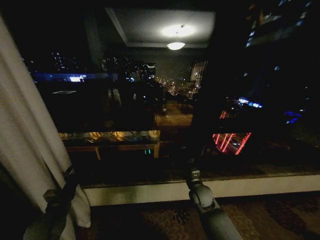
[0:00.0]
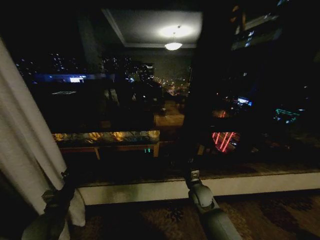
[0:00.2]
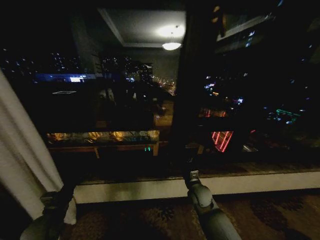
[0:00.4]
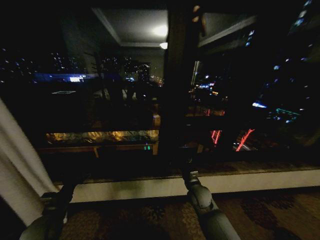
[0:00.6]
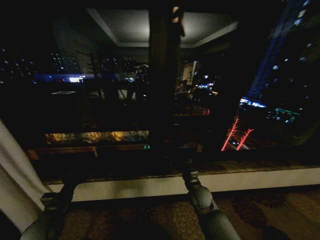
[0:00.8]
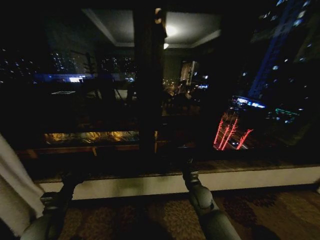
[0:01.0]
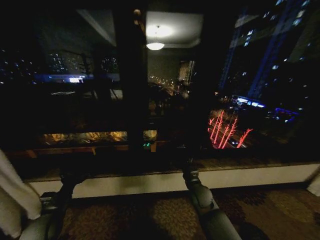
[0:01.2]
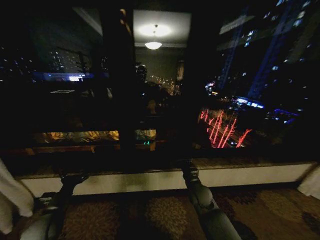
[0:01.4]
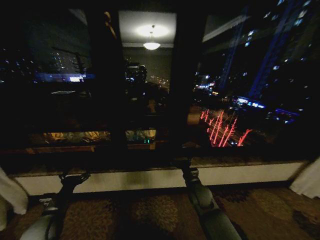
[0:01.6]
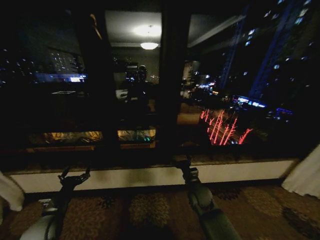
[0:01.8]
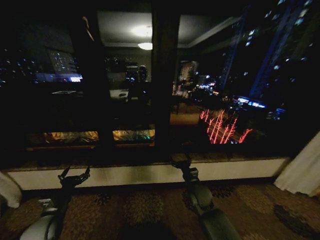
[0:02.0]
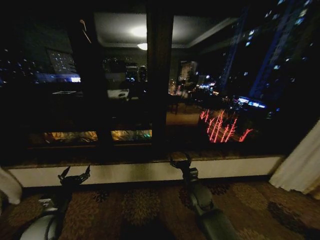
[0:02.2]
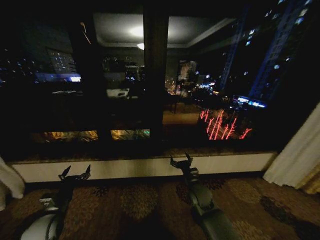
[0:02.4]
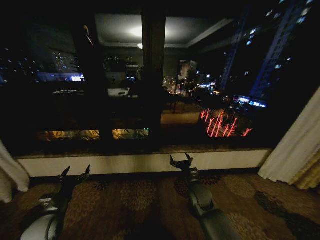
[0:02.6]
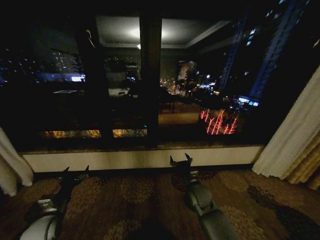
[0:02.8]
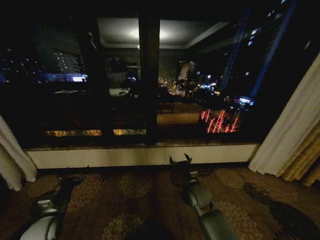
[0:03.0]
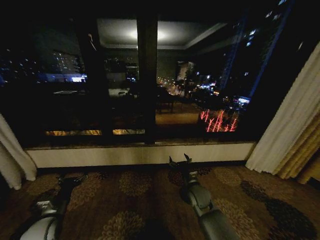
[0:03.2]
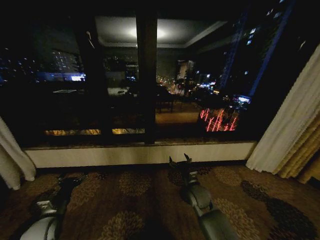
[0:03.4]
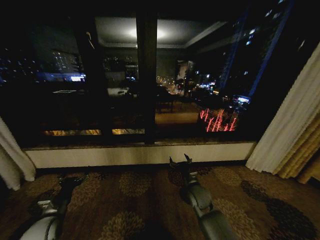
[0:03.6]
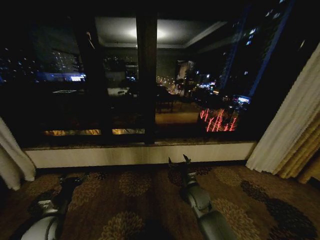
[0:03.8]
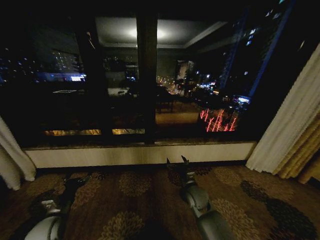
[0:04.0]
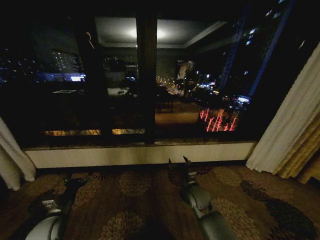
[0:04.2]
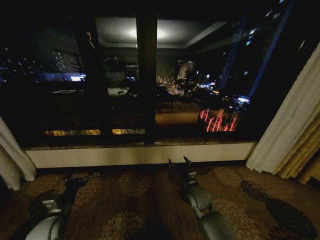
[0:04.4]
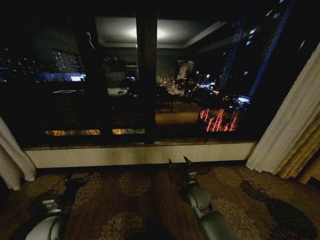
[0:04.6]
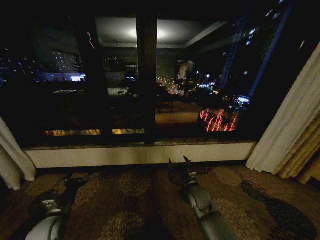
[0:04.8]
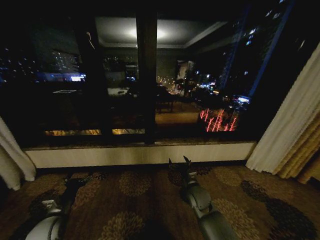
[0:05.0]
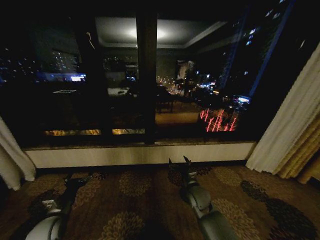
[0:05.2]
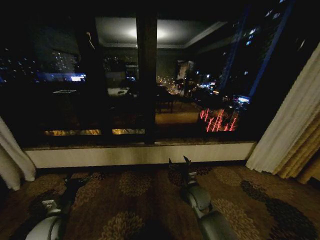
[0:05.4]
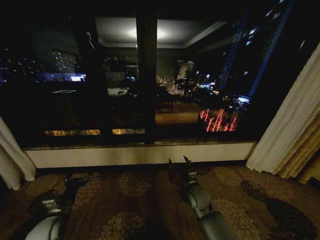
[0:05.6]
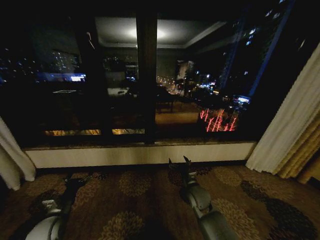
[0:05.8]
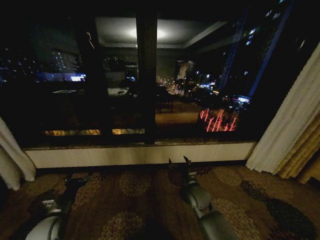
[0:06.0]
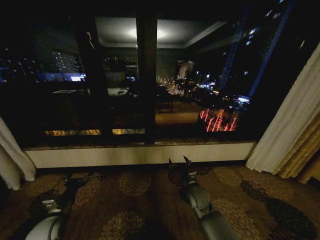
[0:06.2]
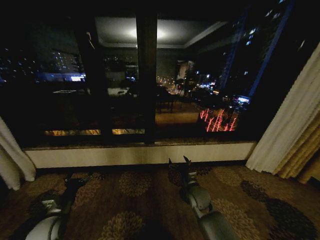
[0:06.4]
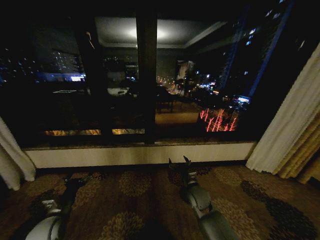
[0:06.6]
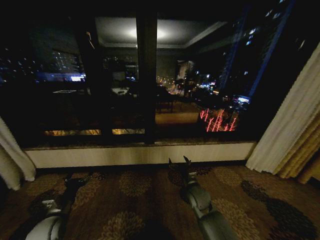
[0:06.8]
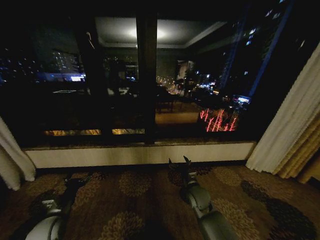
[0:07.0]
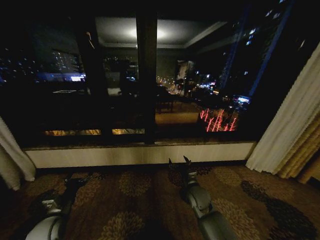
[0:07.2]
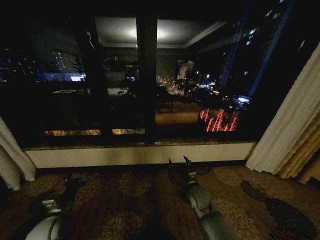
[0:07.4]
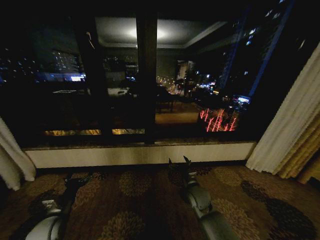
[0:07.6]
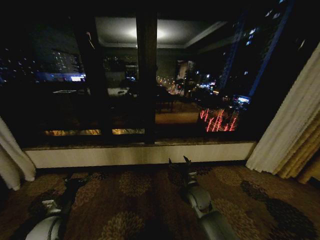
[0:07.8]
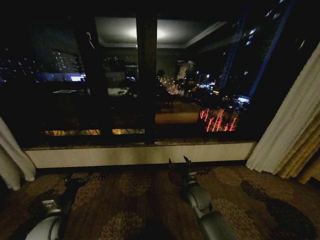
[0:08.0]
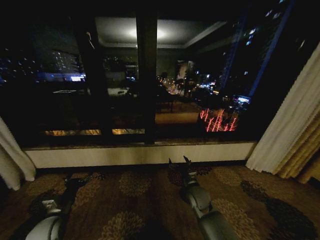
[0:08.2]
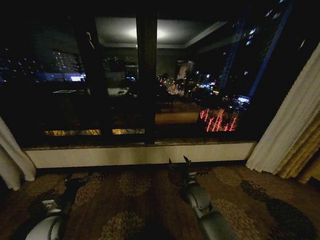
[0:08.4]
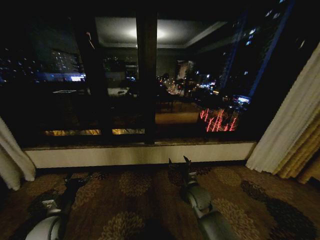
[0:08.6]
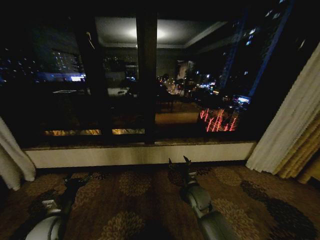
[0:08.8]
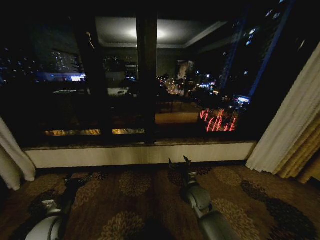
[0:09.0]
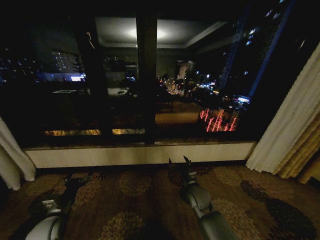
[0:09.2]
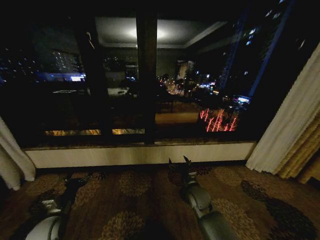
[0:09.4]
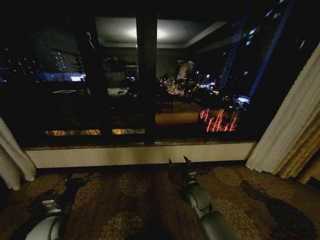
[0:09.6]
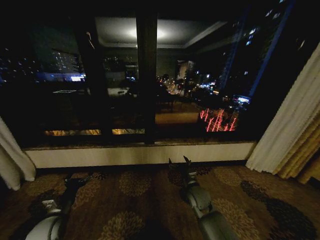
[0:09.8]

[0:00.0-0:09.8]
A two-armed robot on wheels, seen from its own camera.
Task of the whole recording: Open the curtains by pulling them apart, changing their state from closed to fully open.
0:02.8 to 0:04.2: There are only small adjustments of the grippers.
0:04.2 to 0:09.8: Both grippers stay about where they are.

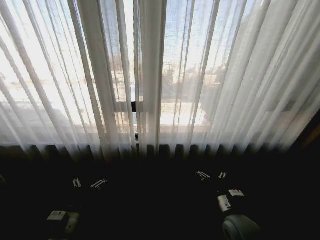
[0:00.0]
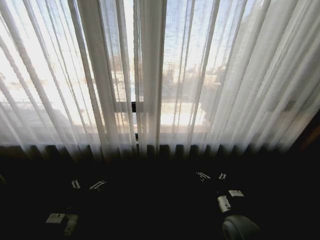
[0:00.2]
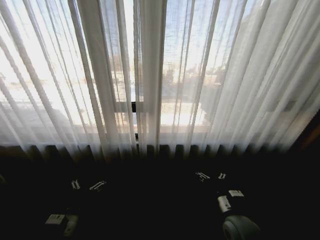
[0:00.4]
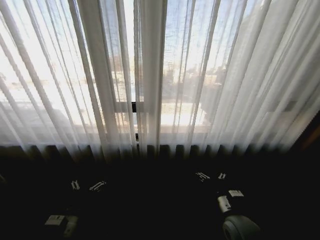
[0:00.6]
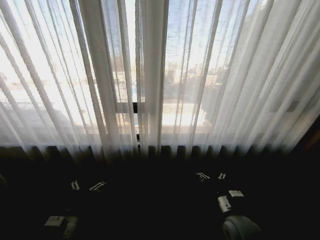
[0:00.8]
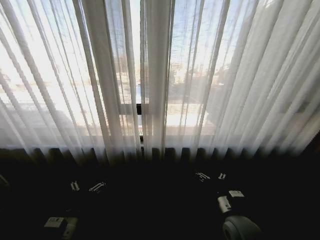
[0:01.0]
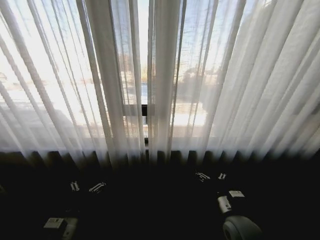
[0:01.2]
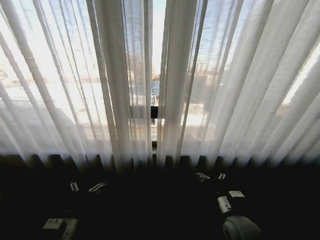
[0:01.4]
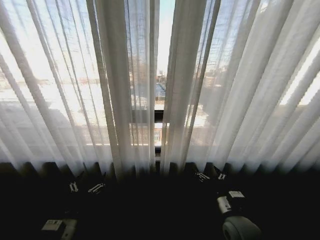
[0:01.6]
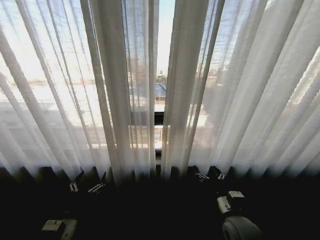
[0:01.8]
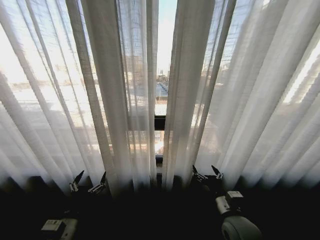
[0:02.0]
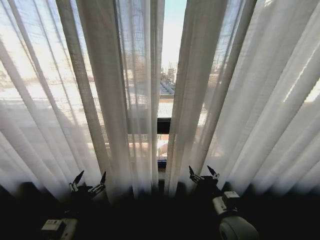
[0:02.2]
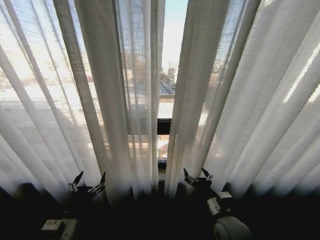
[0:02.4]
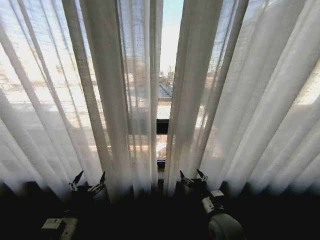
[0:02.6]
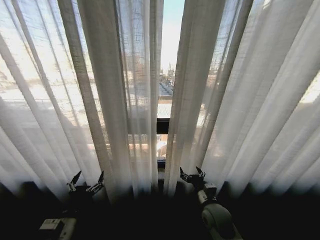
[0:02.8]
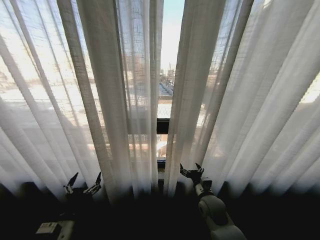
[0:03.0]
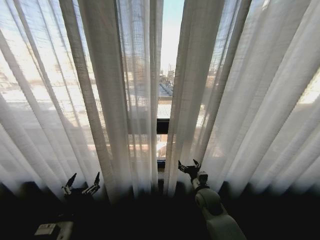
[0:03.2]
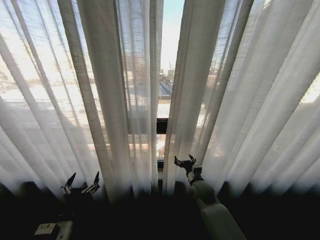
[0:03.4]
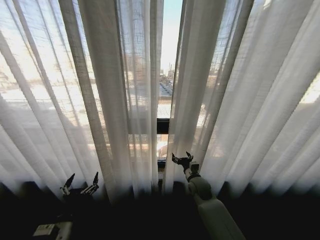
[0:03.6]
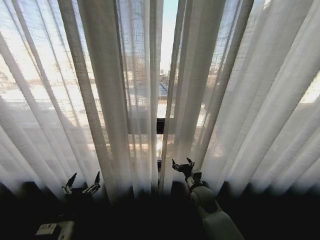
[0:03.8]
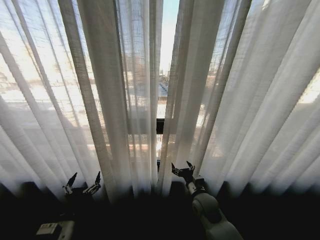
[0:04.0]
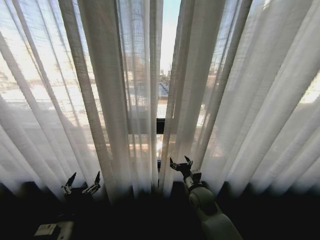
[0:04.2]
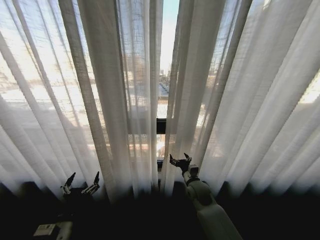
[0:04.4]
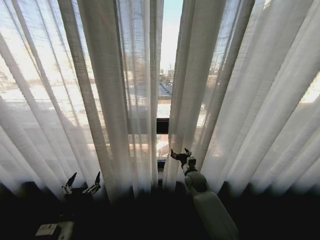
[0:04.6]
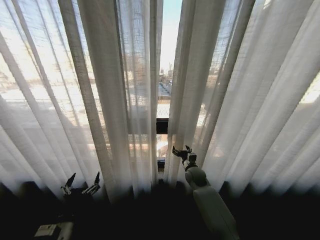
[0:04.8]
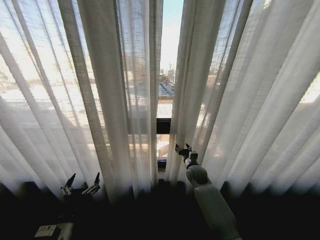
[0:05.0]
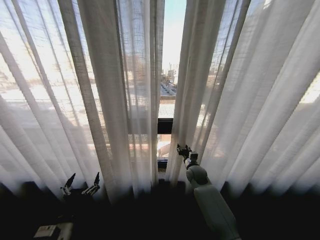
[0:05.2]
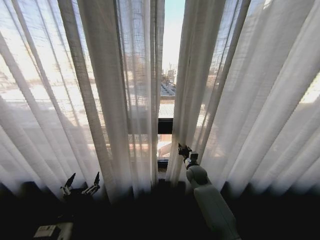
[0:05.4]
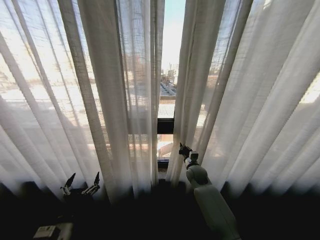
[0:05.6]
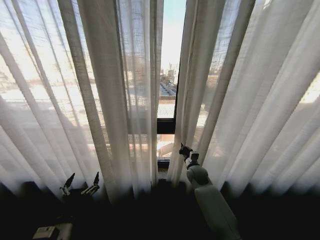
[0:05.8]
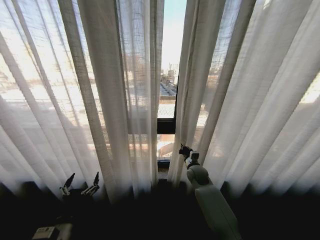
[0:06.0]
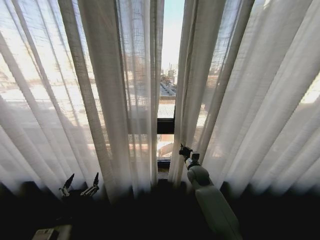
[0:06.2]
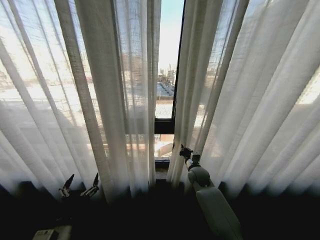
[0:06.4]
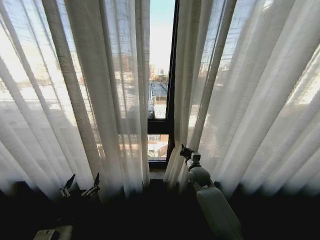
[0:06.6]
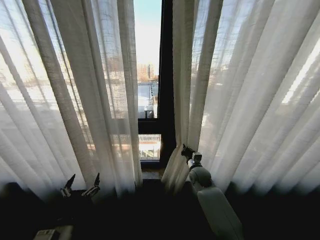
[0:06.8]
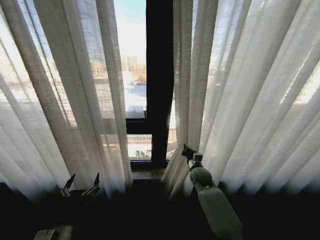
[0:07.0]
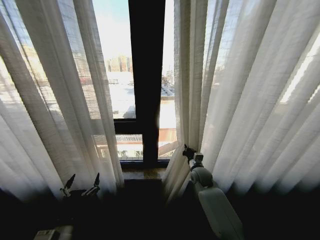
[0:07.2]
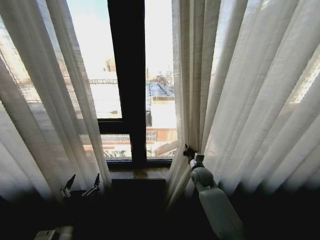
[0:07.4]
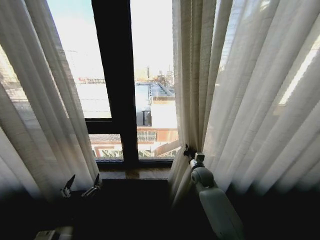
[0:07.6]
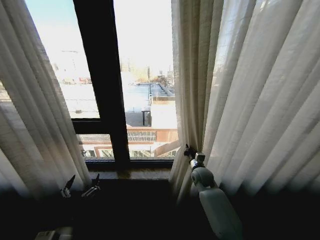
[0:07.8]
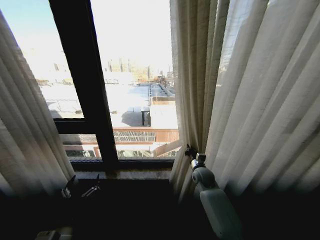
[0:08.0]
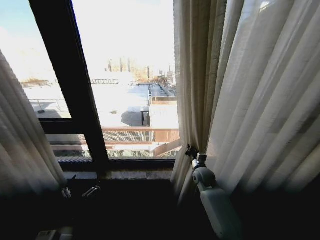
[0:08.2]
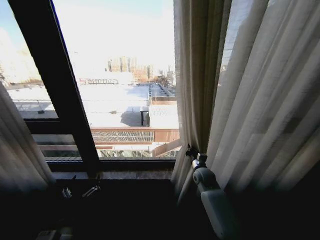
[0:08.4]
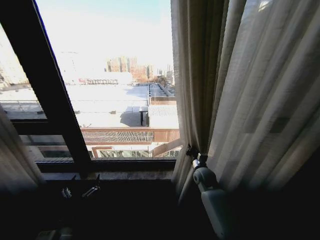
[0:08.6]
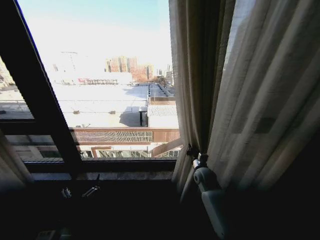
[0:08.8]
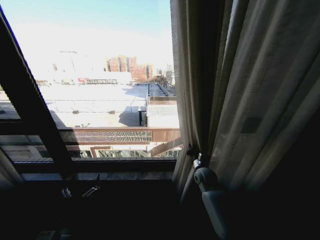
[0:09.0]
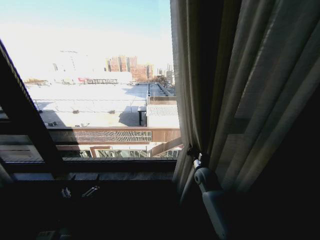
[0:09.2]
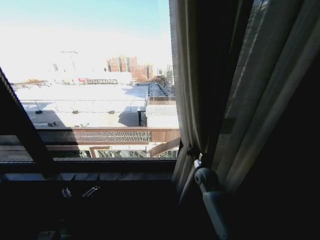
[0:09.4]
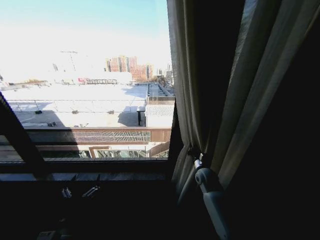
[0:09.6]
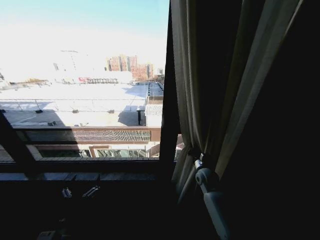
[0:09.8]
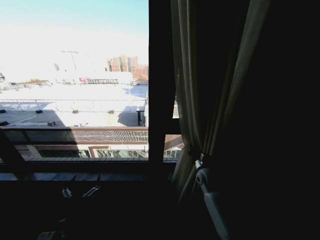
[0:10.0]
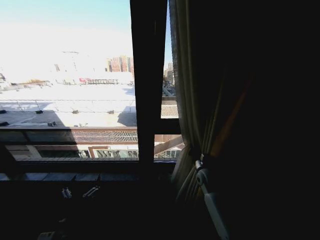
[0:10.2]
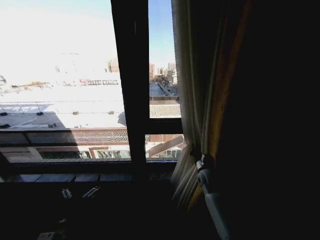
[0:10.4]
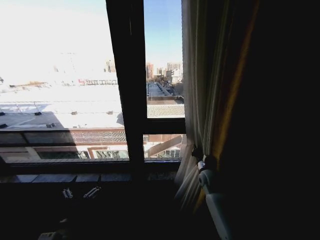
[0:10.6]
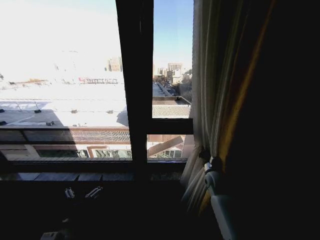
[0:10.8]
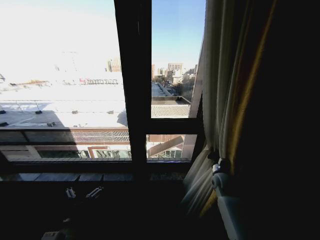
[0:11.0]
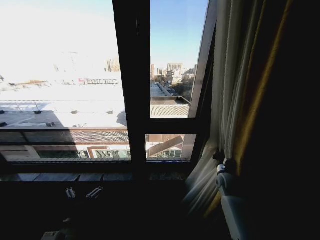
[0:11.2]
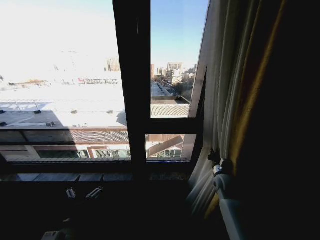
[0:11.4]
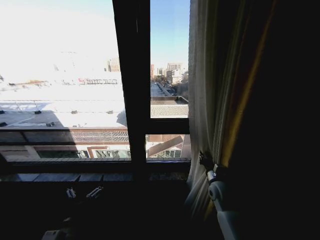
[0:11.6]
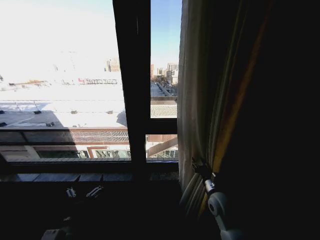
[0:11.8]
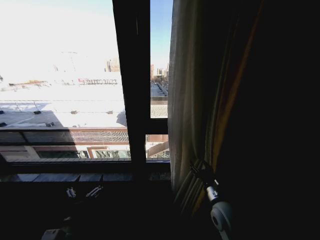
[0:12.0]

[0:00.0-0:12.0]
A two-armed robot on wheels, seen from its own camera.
Task of the whole recording: Open the curtains by pulling them apart, changing their state from closed to fully open.
0:01.6 to 0:03.0: The right gripper heads forward and downward, covering about 10 cm.
0:03.0 to 0:04.4: The right gripper goes forward and backward, approximately 10 cm each way, reversing 2 times.
0:04.4 to 0:06.0: The right gripper moves forward, about 10 cm, and closes its fingers.
0:10.4 to 0:12.0: The right gripper shifts about 20 cm backward, and opens.

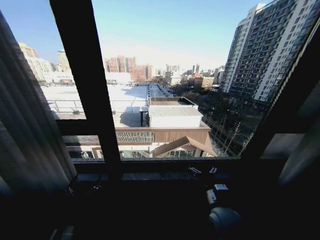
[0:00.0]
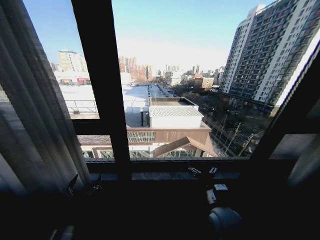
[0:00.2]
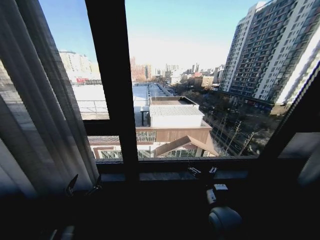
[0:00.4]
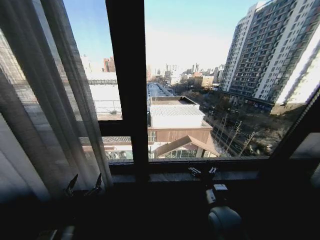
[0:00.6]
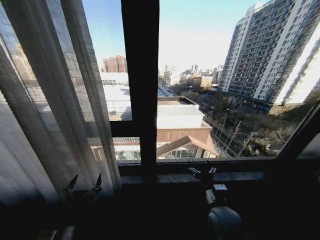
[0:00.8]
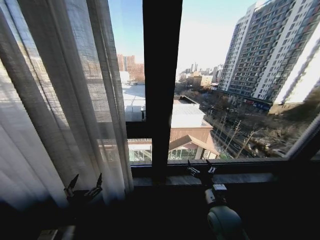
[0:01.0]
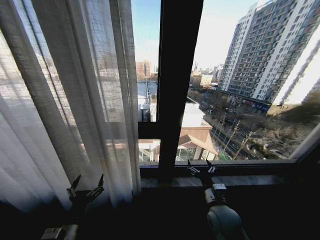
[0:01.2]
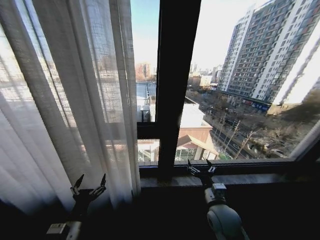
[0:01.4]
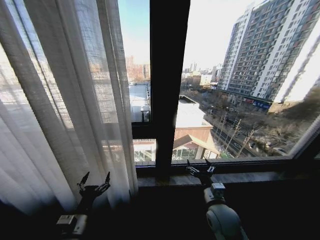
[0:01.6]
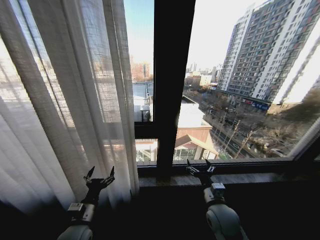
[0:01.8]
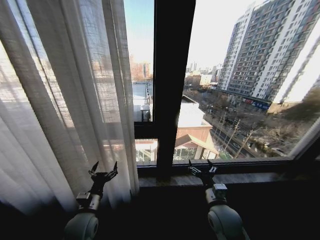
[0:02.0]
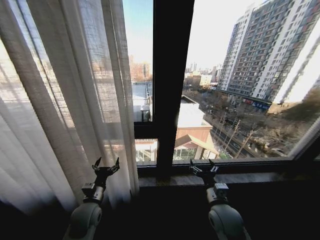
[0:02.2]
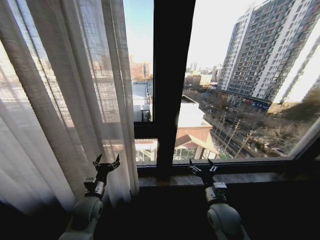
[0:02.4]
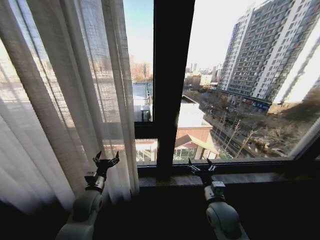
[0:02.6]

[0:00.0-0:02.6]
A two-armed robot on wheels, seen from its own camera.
Task of the whole recording: Open the curtains by pulling them apart, changing their state from closed to fully open.
0:01.2 to 0:02.6: The left gripper goes approximately 15 cm forward.
